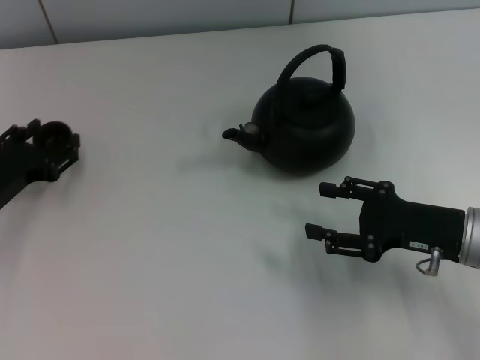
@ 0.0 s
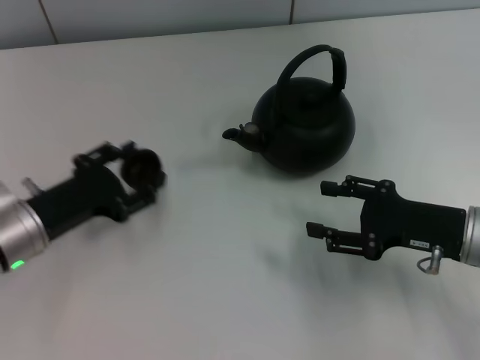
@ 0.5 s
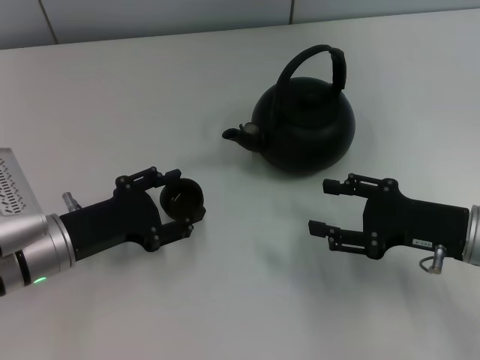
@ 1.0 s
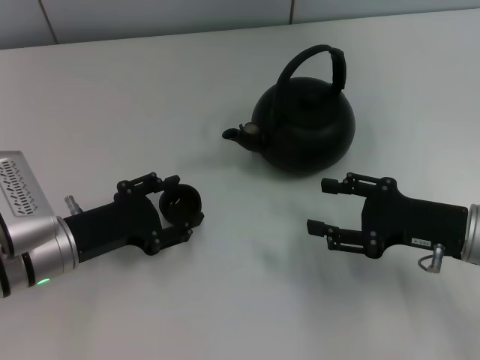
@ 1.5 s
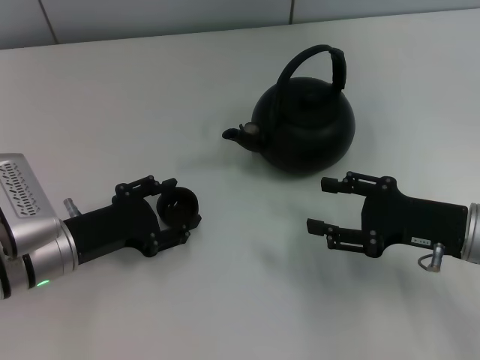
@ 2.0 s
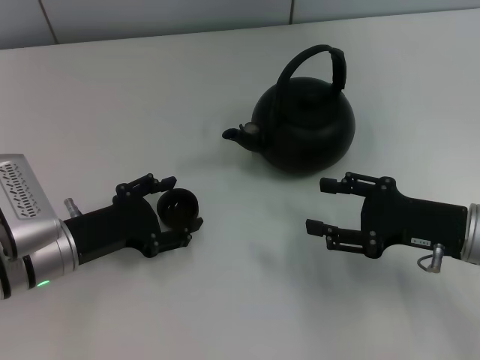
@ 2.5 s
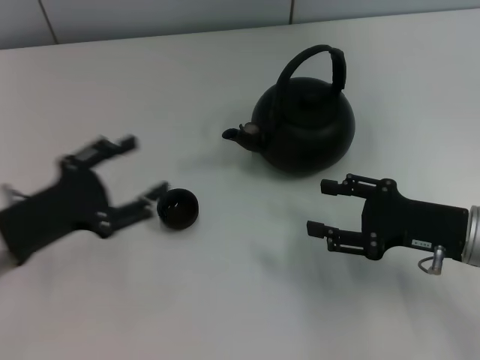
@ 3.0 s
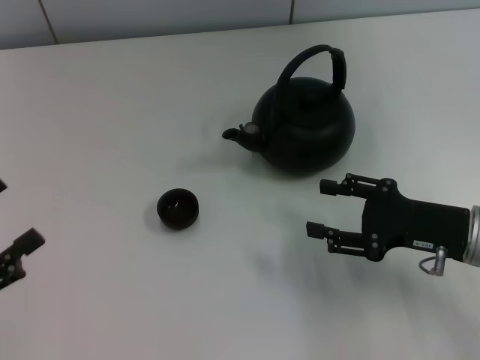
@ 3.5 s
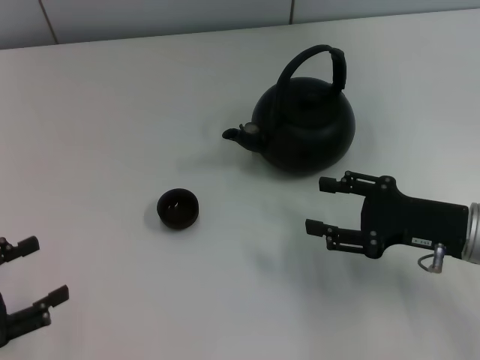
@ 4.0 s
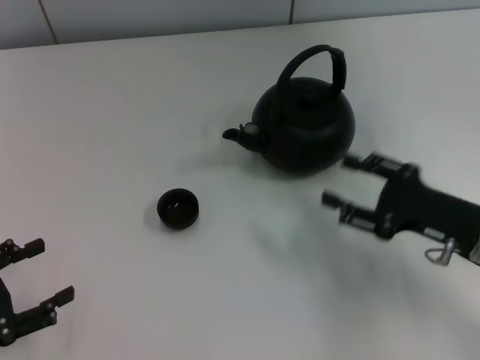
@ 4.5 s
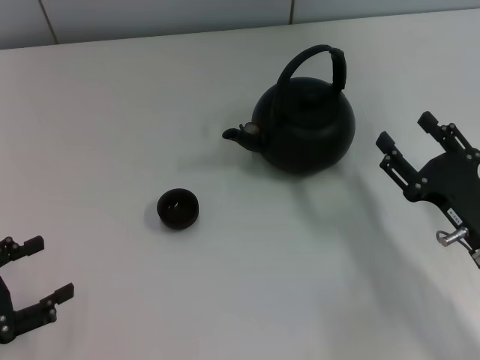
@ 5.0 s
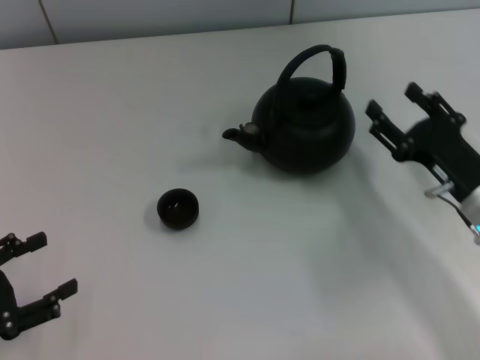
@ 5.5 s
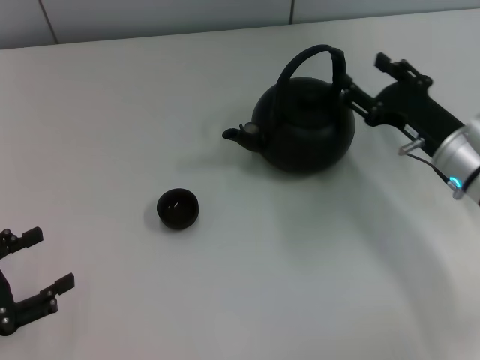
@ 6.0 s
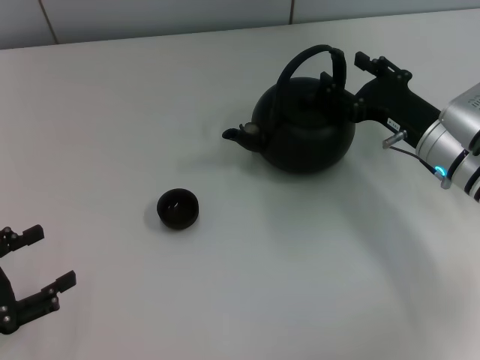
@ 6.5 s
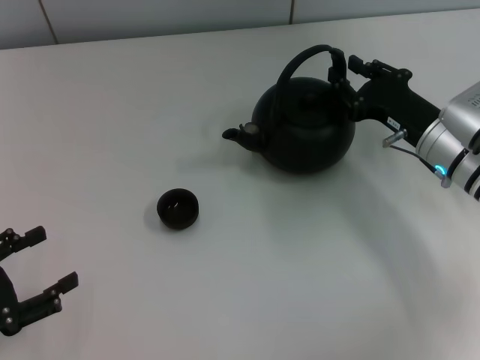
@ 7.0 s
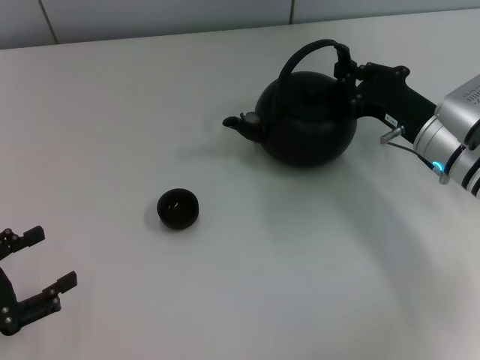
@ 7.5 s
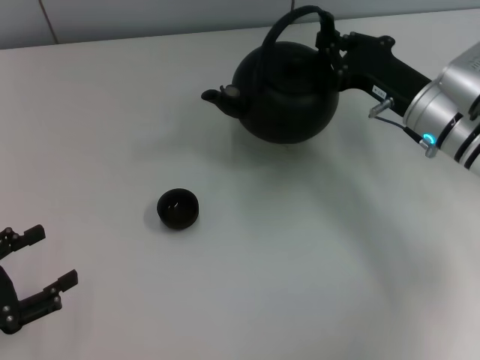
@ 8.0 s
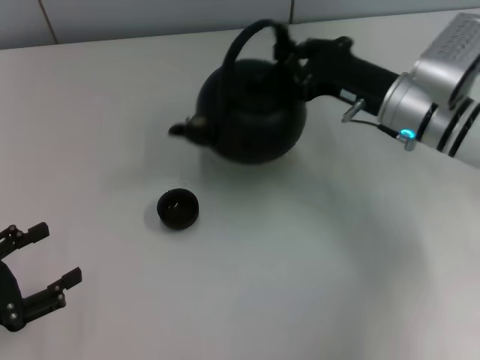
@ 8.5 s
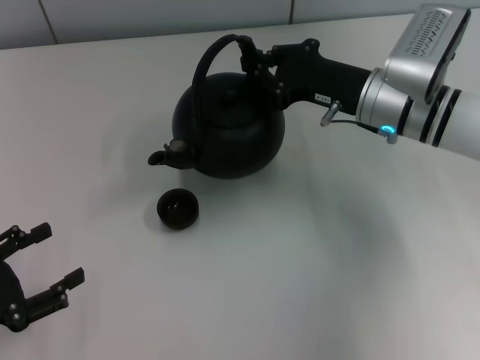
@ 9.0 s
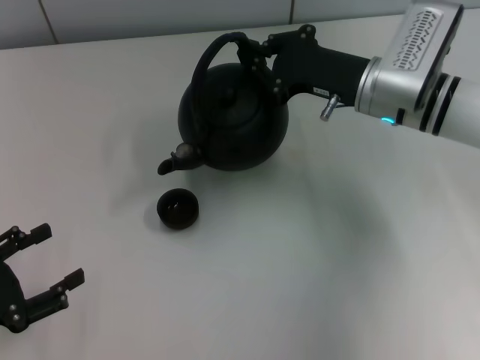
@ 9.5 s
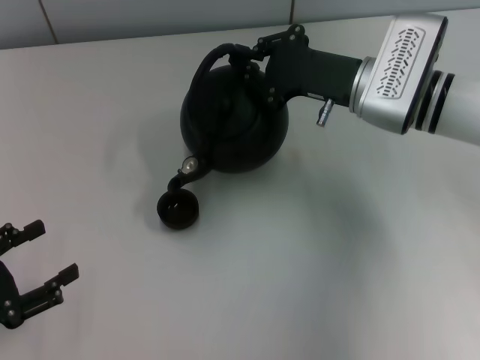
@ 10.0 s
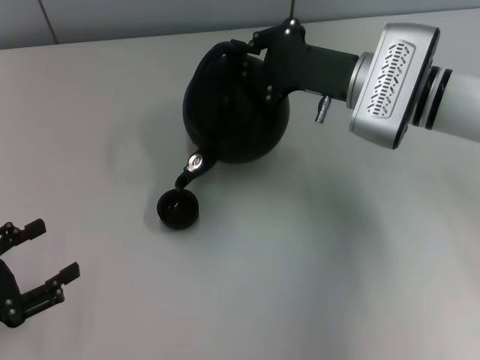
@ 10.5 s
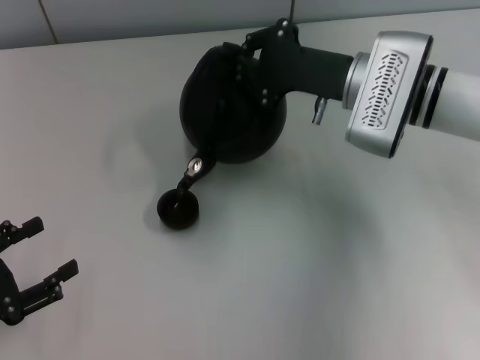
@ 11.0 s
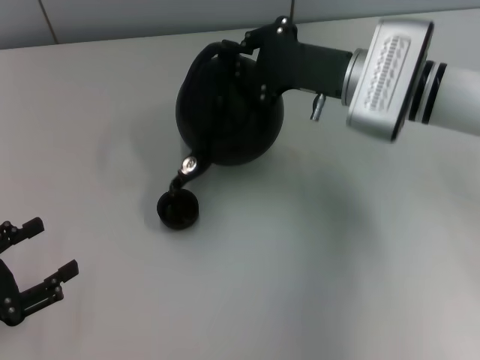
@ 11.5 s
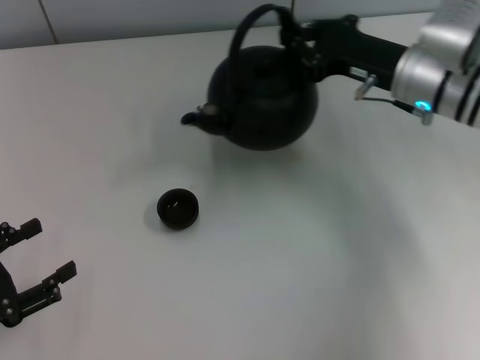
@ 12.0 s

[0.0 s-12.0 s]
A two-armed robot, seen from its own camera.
Task of the whole recording: Grasp the handle of the teapot with one hand and pour tea into the teacup.
Step, 0.5 to 2.5 s: Place the teacup in the center of view with the left gripper.
Step, 3.5 to 8.0 s: Pick up the teapot with the right gripper.
0.0 to 2.0 s: The left gripper travels to the right by about 5 cm.
2.0 to 4.0 s: The left gripper moves to the left and backward, about 15 cm, and opens.
4.0 to 6.0 s: The right gripper moves forward, roughly 5 cm.
6.0 to 8.0 s: The right gripper ends up roughly 5 cm from where it was, and closes.
8.0 to 10.0 s: The right gripper moves to the left, some 5 cm.

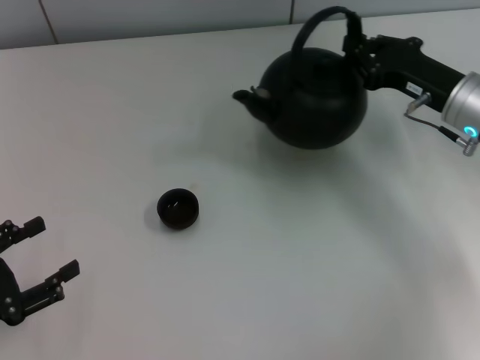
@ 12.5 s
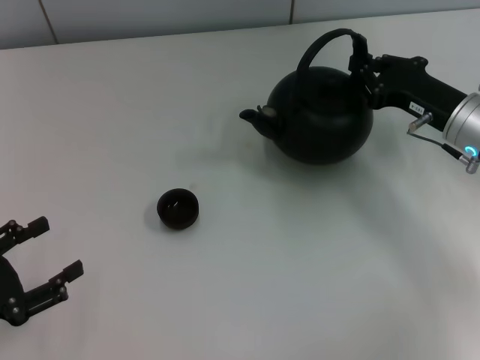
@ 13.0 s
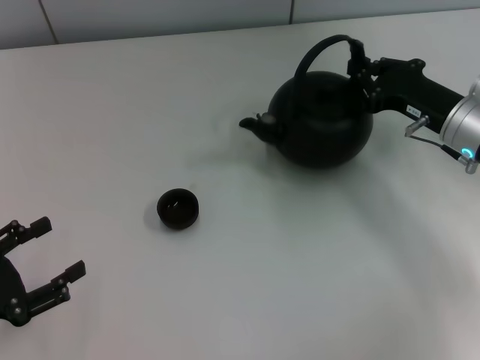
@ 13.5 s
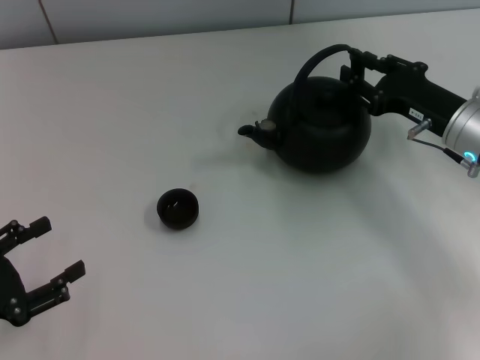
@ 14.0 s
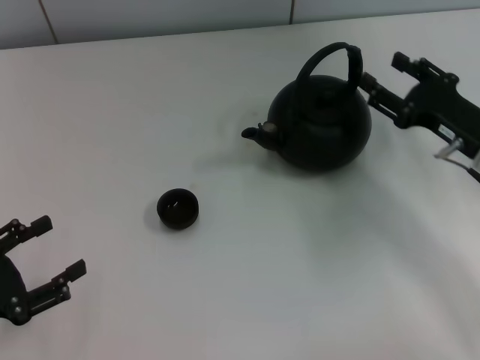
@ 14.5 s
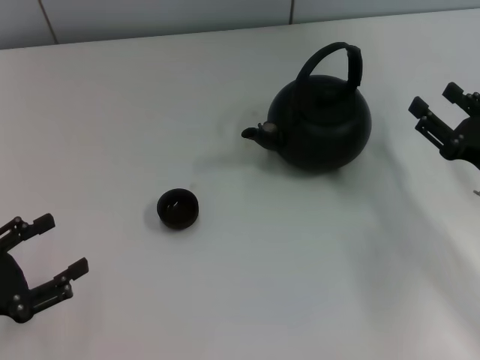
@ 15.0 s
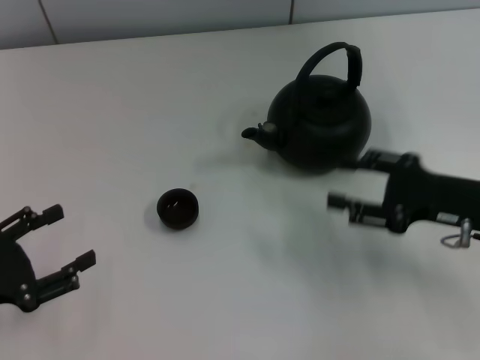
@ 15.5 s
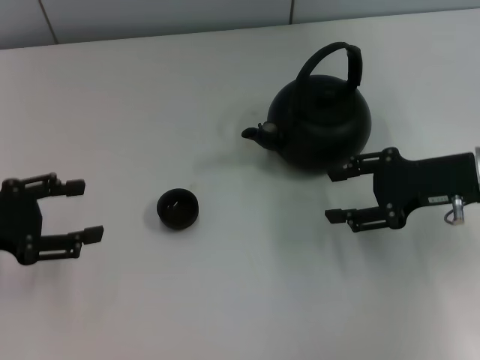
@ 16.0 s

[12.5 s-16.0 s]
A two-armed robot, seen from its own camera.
Task of the whole recording: Grasp the handle of the teapot with one hand and pour tea into the teacup.
Step, 12.5 to 14.5 s: Put down the teapot with the right gripper.
12.5 to 14.5 s: The right gripper moves backward, about 5 cm, and opens up.
14.5 to 16.0 s: The left gripper heads forward and upward, covering roughly 10 cm.
